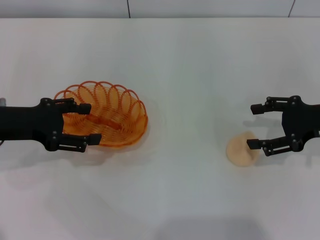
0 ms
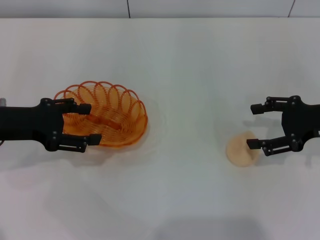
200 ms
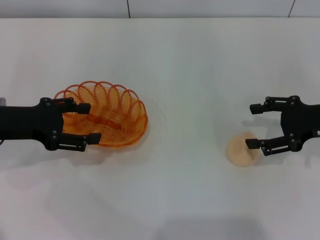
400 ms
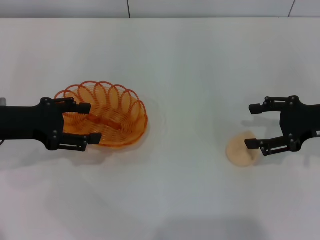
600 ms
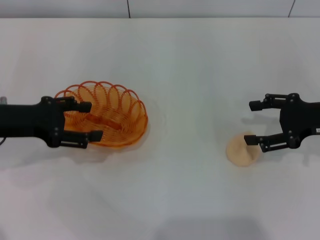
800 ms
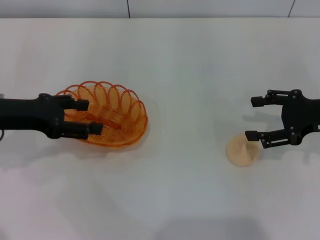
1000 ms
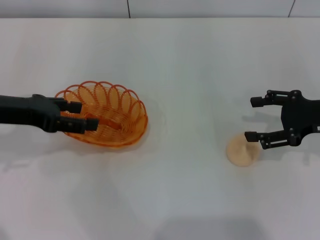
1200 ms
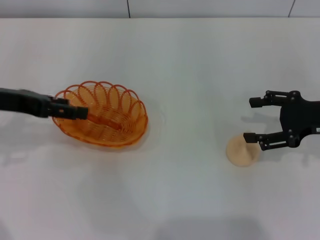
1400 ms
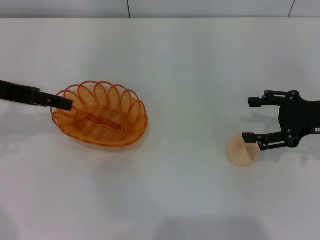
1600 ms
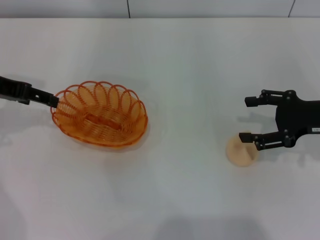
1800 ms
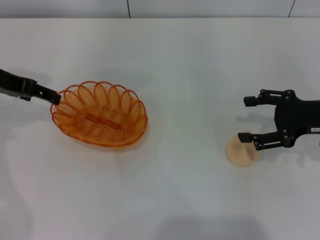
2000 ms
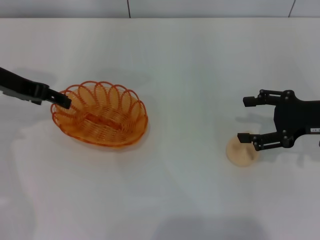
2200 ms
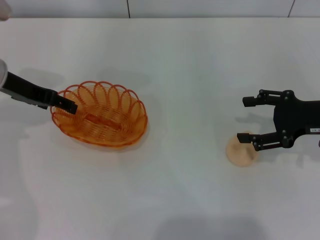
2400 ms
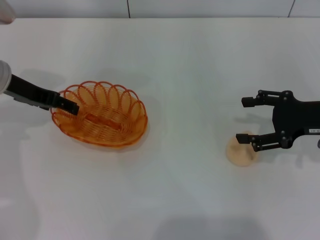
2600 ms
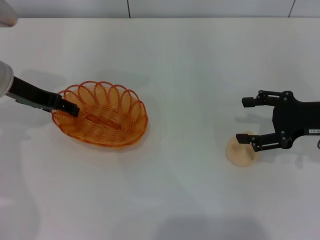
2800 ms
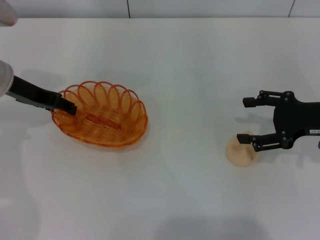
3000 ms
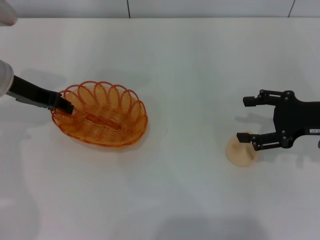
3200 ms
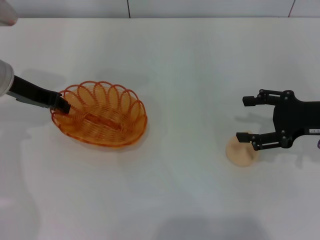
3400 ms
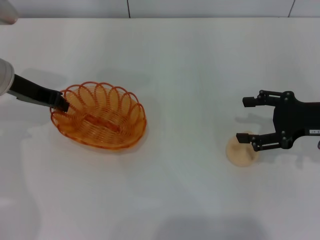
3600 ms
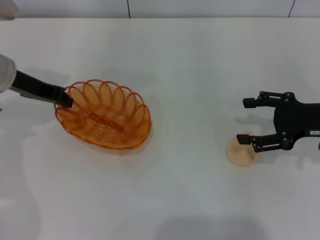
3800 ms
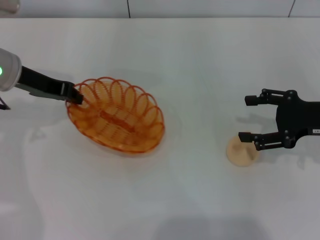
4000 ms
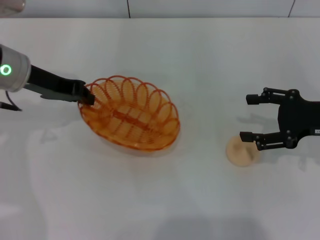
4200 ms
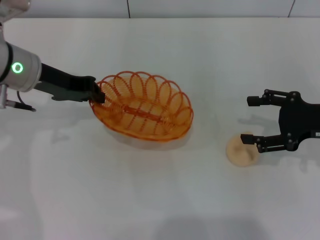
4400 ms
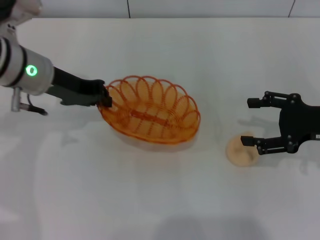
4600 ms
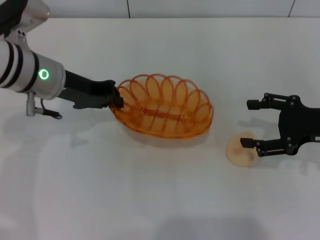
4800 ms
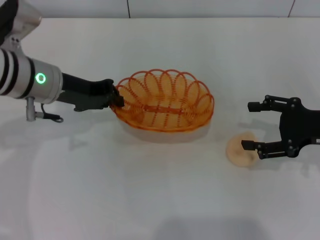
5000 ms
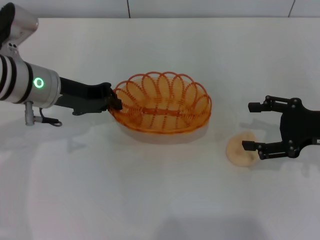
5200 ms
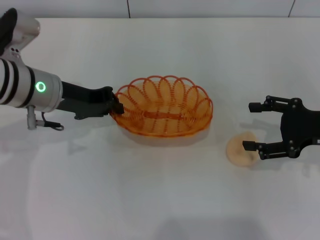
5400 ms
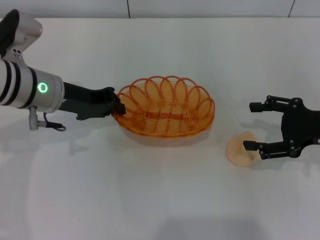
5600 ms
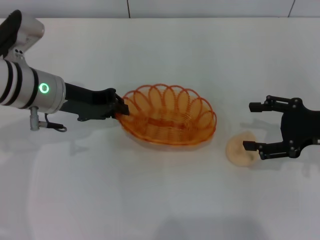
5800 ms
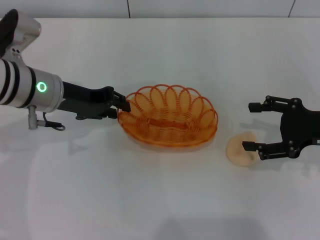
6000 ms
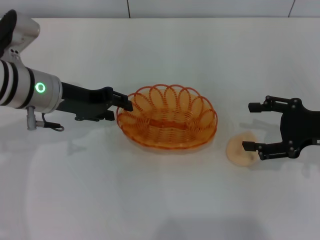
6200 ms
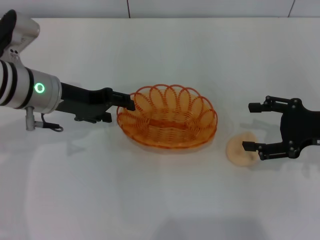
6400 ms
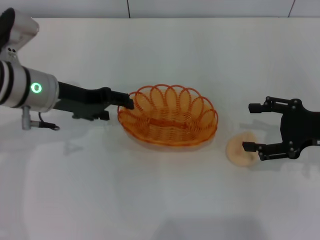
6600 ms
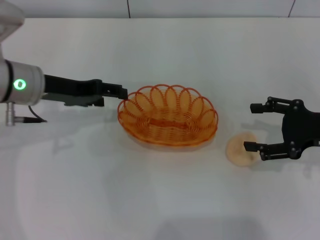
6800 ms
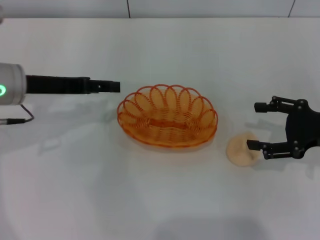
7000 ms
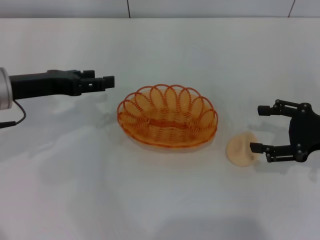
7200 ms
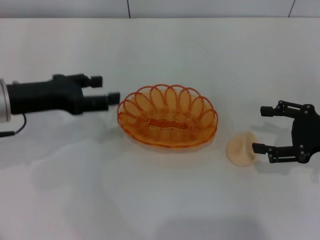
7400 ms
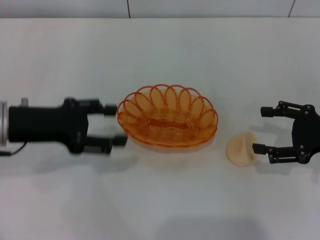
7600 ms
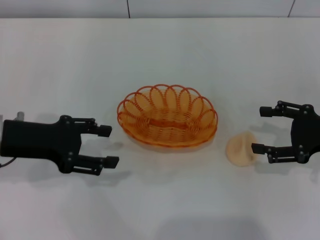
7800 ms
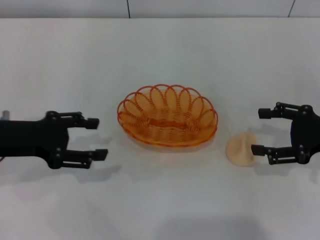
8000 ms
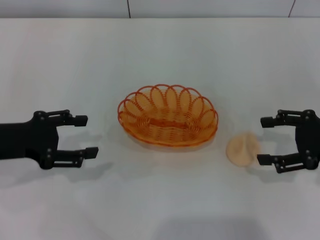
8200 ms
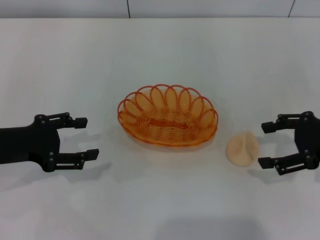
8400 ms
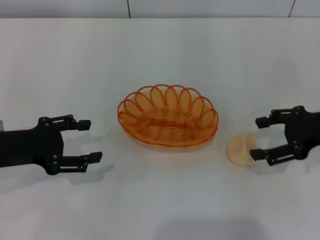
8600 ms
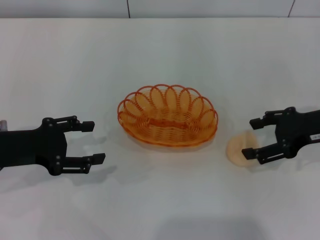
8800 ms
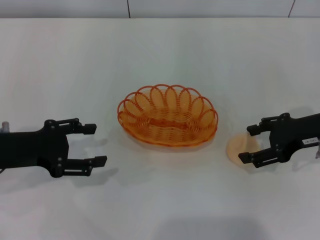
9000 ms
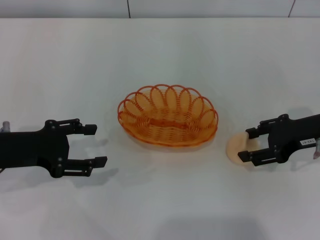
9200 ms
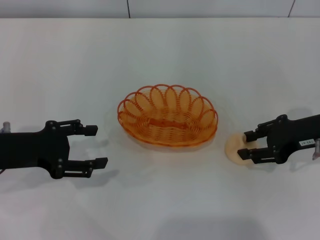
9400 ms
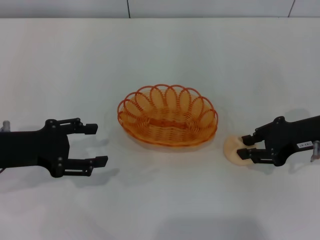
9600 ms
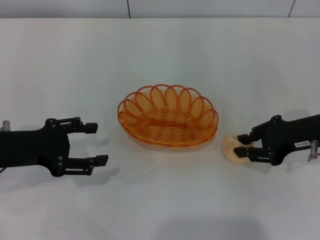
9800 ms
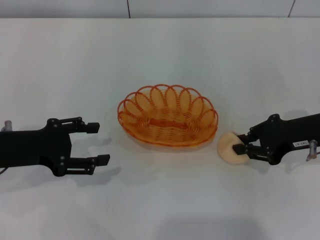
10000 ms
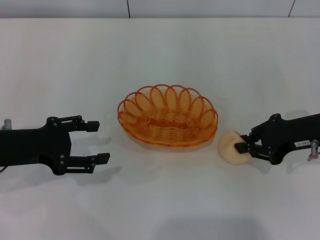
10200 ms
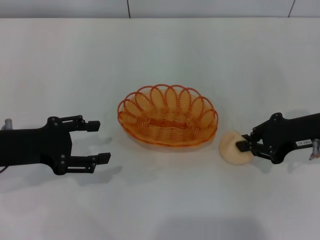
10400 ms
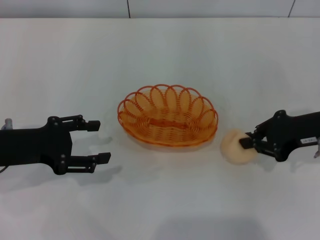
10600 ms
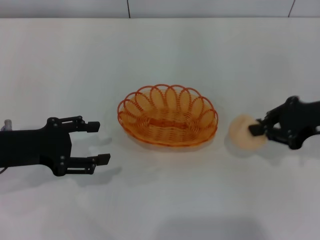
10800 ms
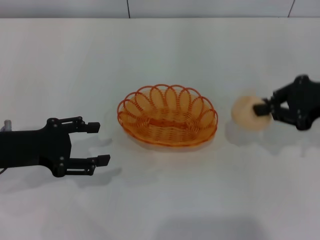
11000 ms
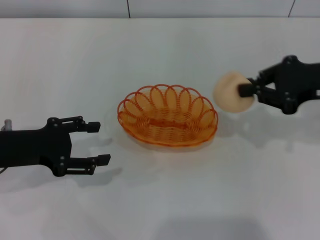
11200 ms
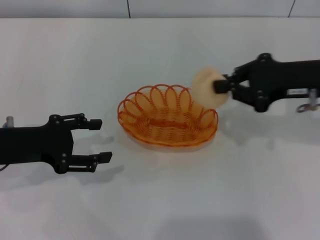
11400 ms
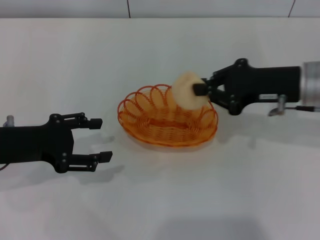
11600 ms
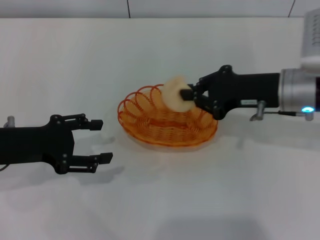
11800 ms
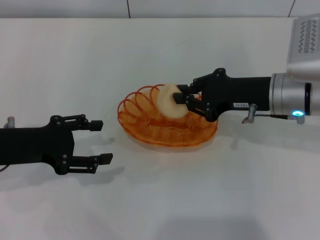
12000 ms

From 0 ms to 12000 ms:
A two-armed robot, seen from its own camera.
Step, from 0 ms to 4000 ms: Pick up the basket with the left gripper.
Step, from 4200 ms to 6800 ms: Place the basket in the center of view with the left gripper.
Step, from 7200 ms to 11000 ms: Pick up the egg yolk pastry with the right gripper.
From 0 ms to 1600 ms: The left gripper moves upward, roughly 5 cm.
From 1600 ms to 3000 ms: The left gripper changes place by about 5 cm.
From 3000 ms to 4400 ms: The left gripper closes.
From 4400 ms to 6000 ms: The grippers stay close to where they were, moving slightly.
From 6000 ms to 7600 ms: The left gripper goes approximately 10 cm backward and to the left, and opens.
From 7600 ms to 9000 ms: The right gripper shifts by some 5 cm.
From 9000 ms to 10400 ms: The right gripper closes up.
From 10400 ms to 12000 ms: The right gripper travels to the left by about 10 cm.

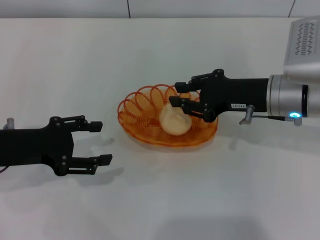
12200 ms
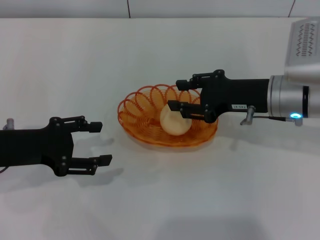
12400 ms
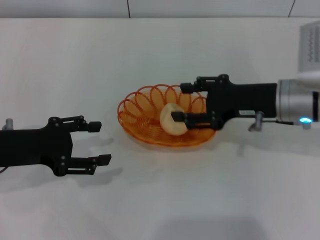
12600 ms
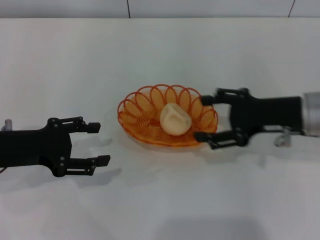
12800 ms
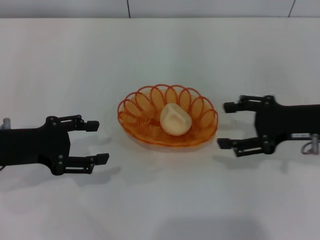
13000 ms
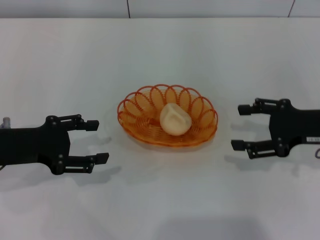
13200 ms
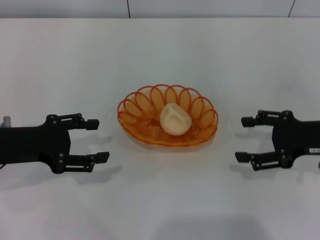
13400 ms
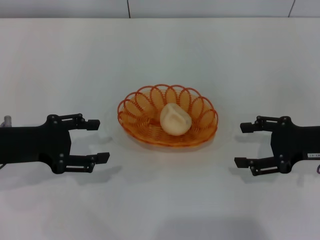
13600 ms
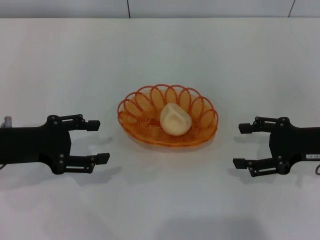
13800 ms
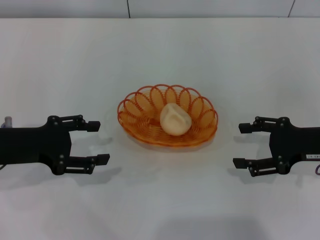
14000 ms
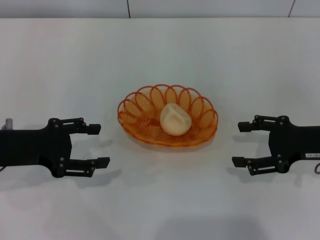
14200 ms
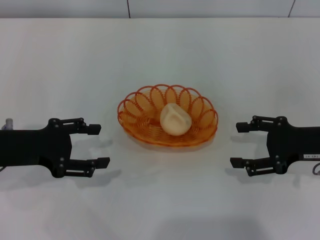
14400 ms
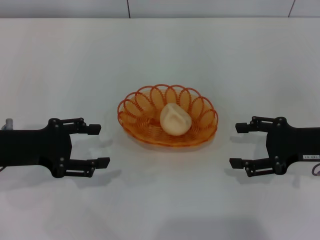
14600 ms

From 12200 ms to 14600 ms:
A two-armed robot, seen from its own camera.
From 12200 ms to 13400 ms: The right gripper shifts roughly 10 cm to the right, and opens.
From 13400 ms to 14600 ms: Both grippers stay put.

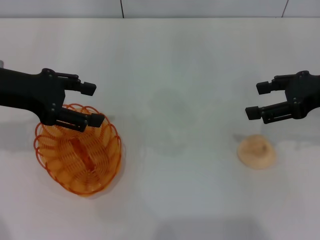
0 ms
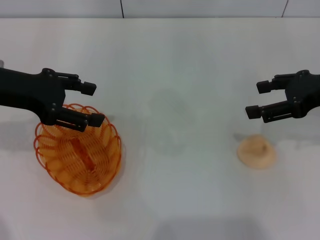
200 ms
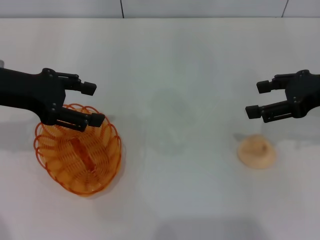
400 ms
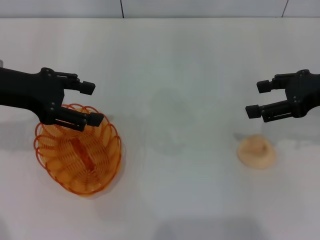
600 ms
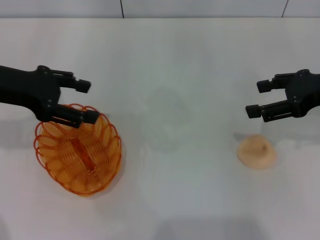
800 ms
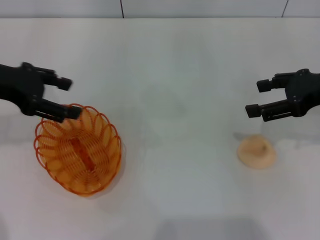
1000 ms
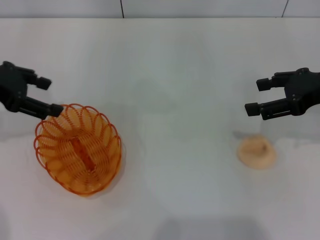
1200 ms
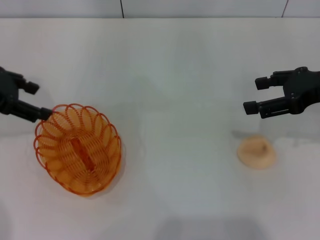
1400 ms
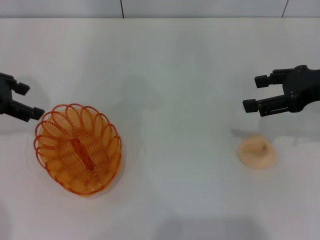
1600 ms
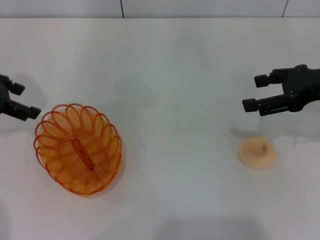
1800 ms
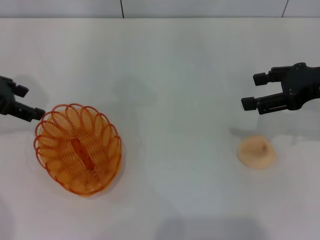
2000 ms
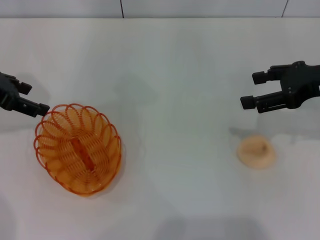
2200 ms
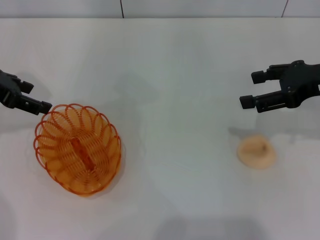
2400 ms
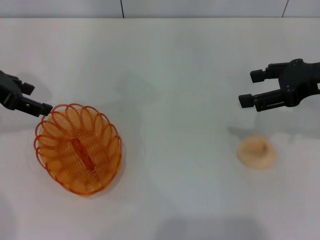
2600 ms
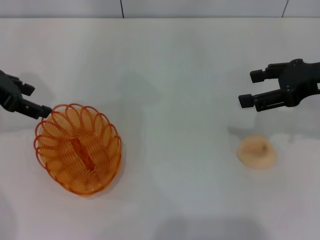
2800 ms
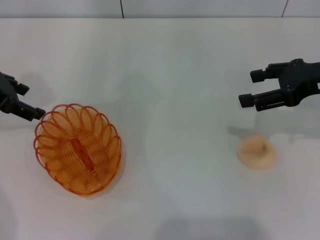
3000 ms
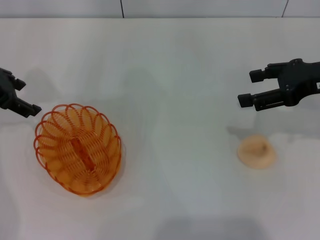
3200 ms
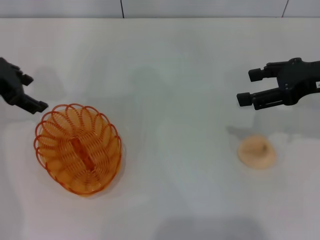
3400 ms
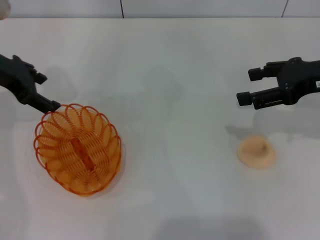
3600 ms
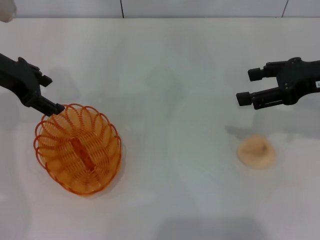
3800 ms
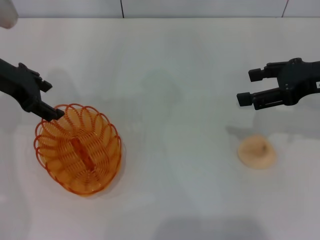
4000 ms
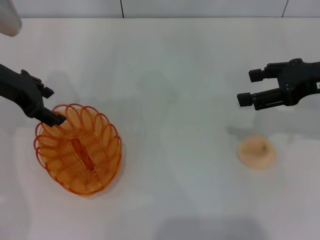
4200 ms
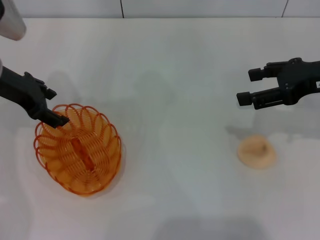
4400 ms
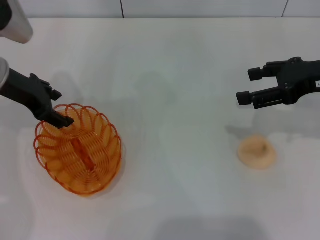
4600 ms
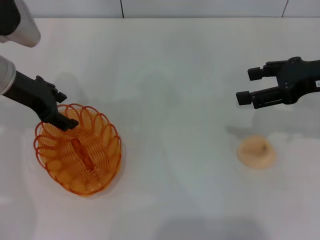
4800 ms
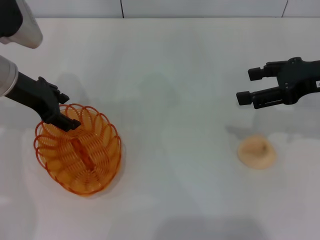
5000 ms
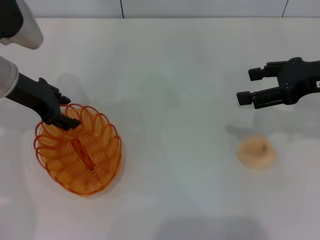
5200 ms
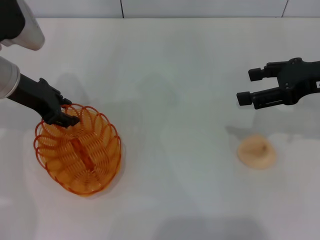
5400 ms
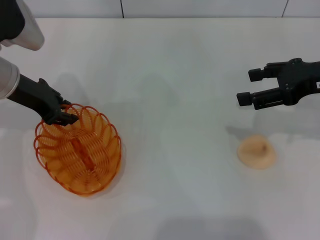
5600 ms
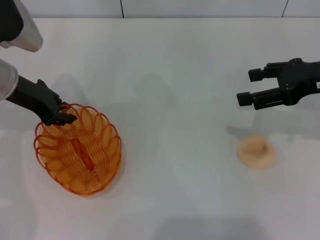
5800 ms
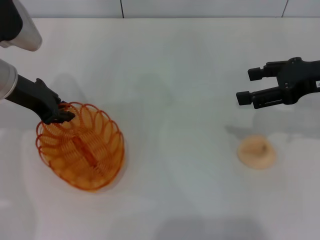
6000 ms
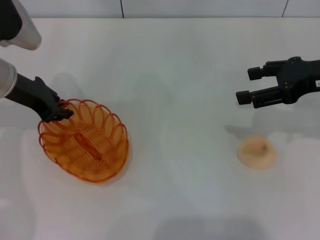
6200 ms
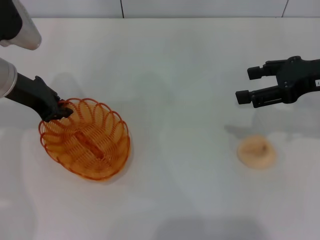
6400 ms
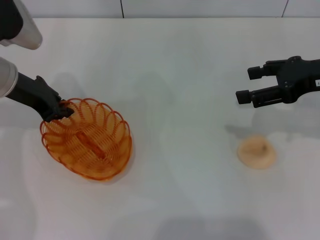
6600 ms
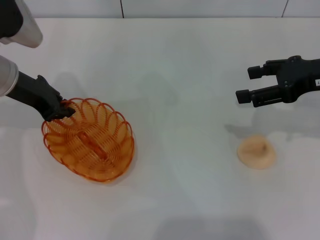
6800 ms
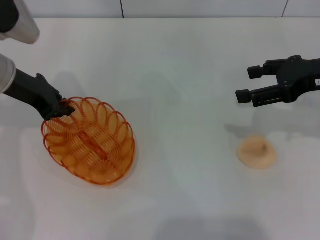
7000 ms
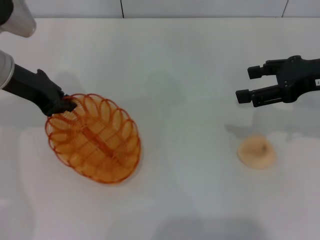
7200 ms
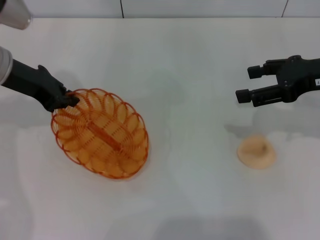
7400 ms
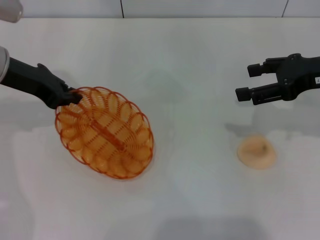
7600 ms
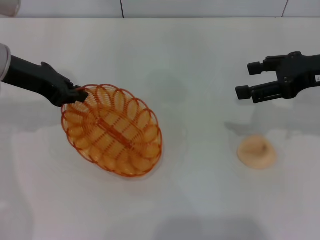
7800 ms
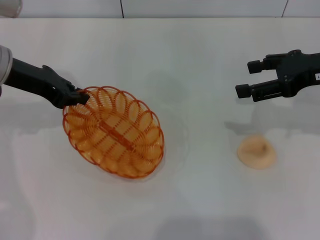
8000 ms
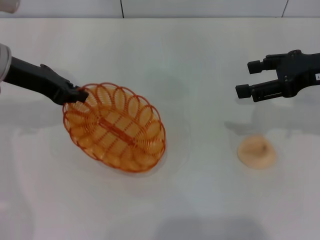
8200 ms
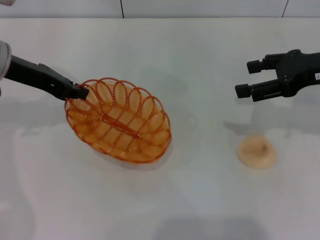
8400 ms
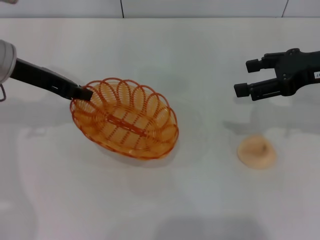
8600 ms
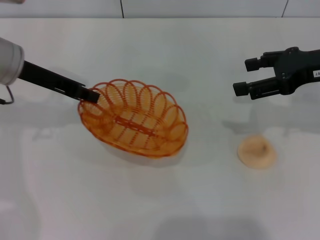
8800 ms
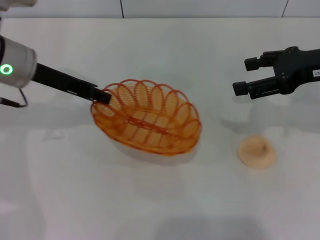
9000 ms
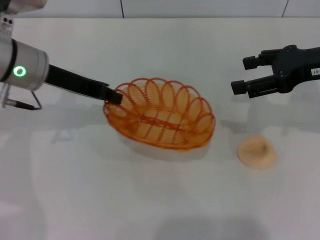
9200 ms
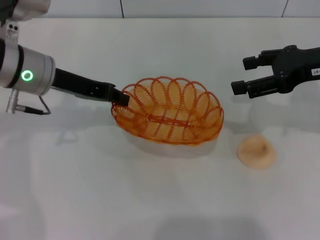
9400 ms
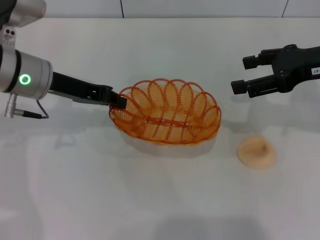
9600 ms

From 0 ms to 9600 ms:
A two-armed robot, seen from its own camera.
Step, from 0 ms to 8400 ms: Pick up the basket with the left gripper.
From 0 ms to 1600 ms: The left gripper shifts by approximately 5 cm.
From 1600 ms to 3200 ms: The grippers make only small movements.
From 3200 ms to 4800 ms: The left gripper is displaced to the right by roughly 5 cm.
From 4800 ms to 6400 ms: The left gripper closes its fingers.
From 6400 ms to 8000 ms: The grippers stay close to where they were, moving slightly.
From 8000 ms to 9600 ms: The left gripper moves approximately 5 cm.
